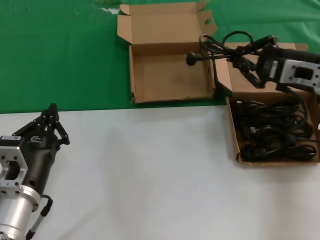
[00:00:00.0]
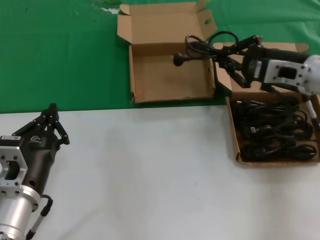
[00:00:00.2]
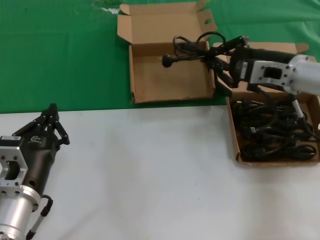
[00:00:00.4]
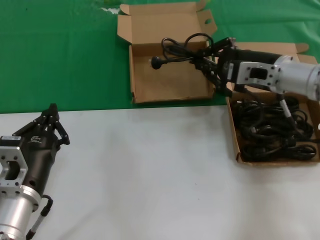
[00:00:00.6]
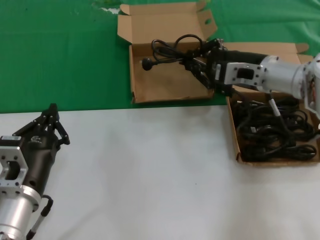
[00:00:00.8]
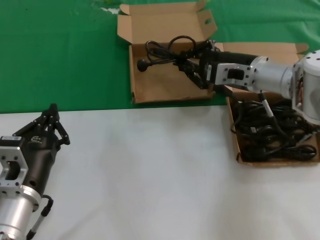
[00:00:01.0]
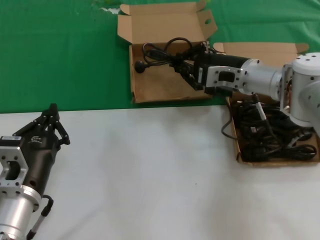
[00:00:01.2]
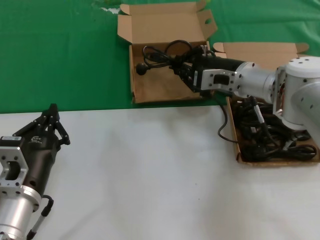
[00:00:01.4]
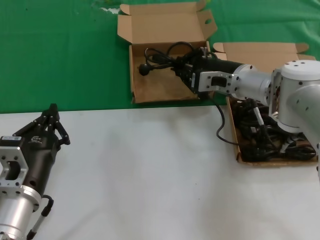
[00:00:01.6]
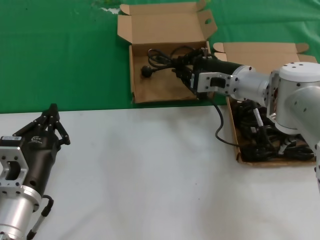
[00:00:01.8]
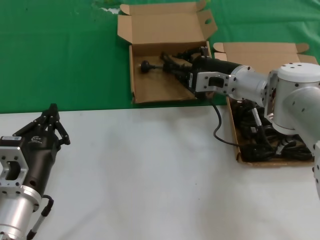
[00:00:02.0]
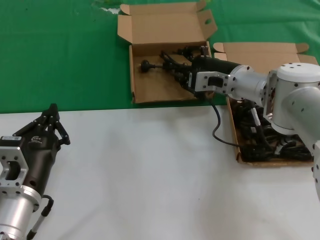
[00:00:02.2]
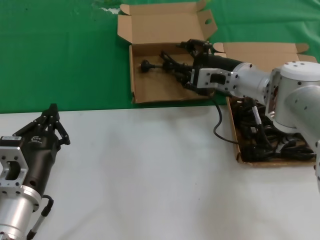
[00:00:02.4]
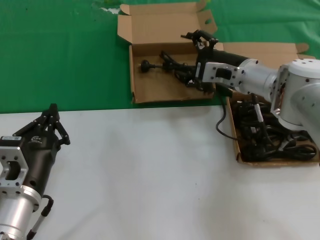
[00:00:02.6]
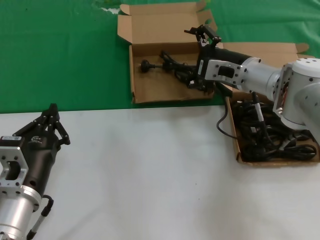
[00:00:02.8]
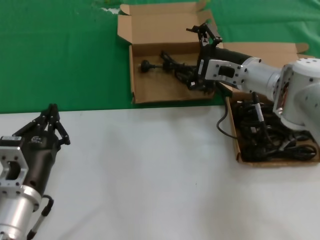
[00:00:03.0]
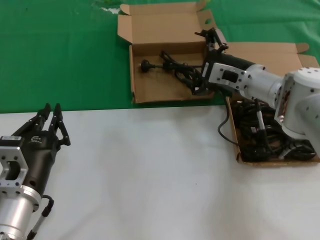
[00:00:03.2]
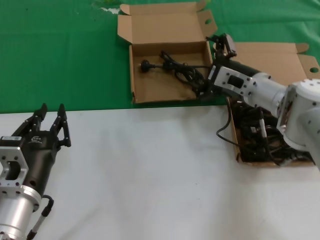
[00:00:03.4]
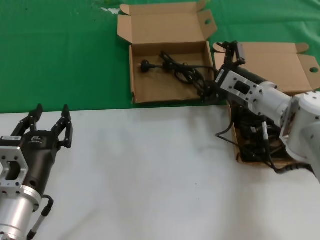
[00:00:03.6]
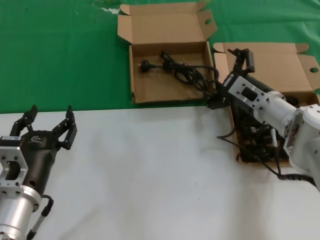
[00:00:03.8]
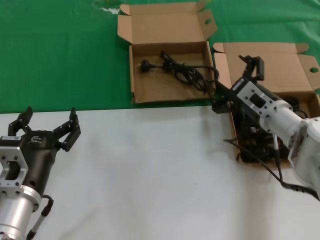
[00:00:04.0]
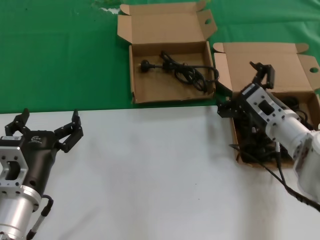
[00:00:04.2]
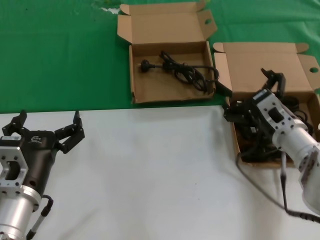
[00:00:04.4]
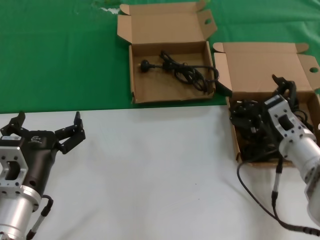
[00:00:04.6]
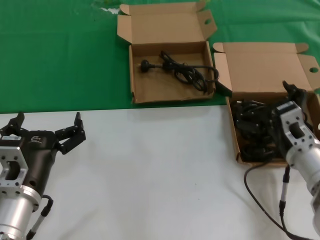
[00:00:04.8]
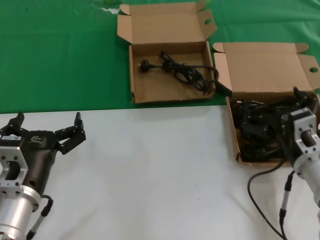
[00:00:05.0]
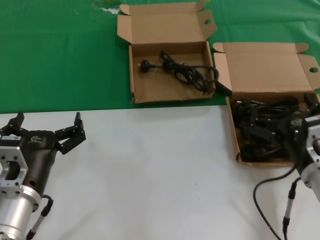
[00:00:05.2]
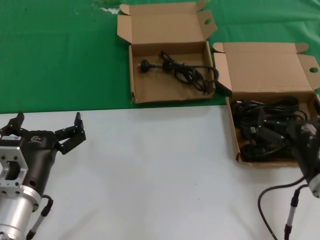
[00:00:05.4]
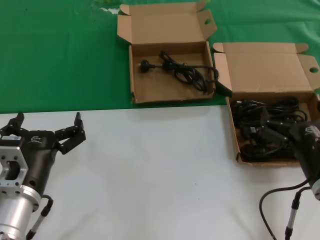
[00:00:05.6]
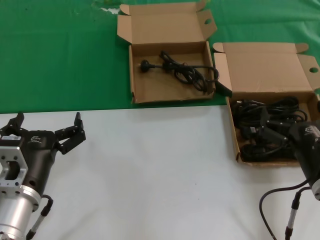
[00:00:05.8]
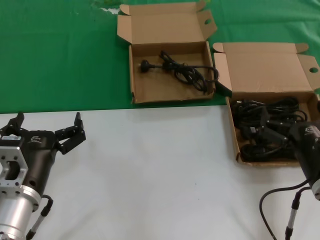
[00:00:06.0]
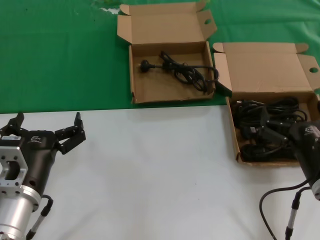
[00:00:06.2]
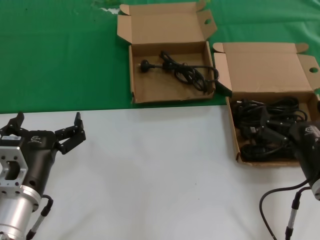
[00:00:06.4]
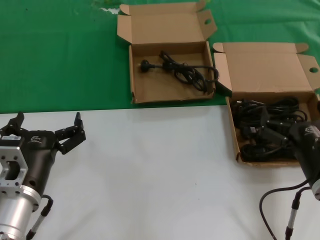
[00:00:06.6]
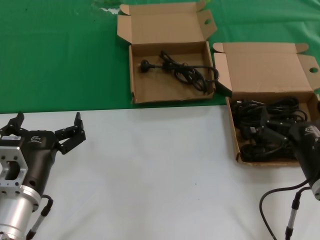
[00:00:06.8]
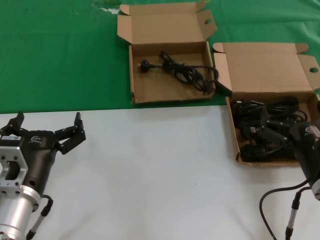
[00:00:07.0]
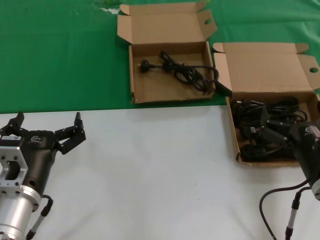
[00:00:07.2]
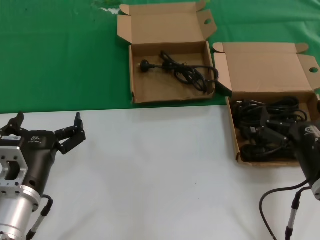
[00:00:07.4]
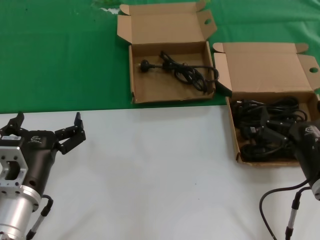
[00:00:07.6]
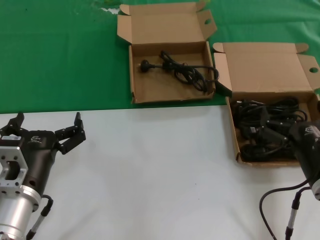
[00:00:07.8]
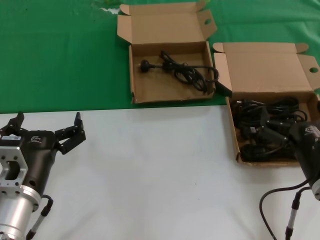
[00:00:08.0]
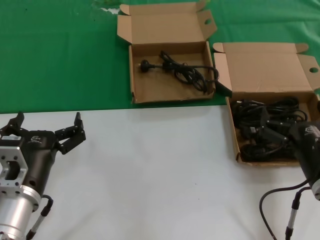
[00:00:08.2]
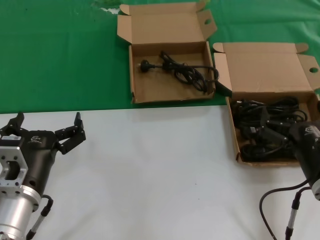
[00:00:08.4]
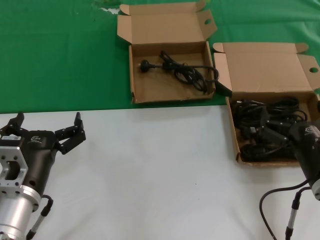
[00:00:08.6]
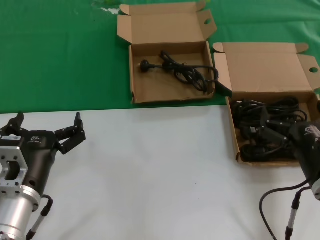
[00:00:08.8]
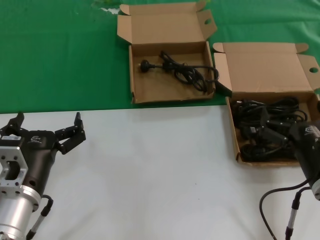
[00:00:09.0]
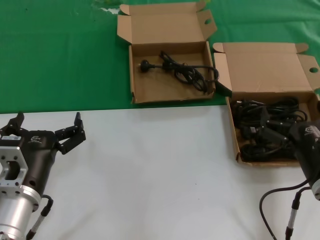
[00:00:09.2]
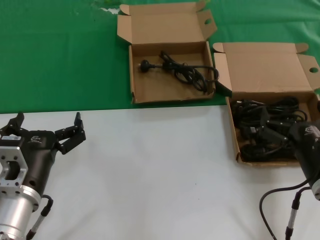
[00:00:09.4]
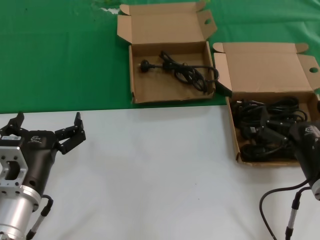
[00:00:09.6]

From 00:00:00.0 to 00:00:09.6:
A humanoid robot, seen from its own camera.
Task of the whole recording: take the parts from the box containing them and put them into an empty box.
Step, from 00:00:00.0 to 00:00:02.0: Place the data cable in the another box.
From 00:00:00.0 to 00:00:01.6: The right hand is displaced to the left, forward and downward by roughly 15 cm.
From 00:00:01.6 to 00:00:03.2: The hands move only a little.
From 00:00:03.2 to 00:00:04.8: The right hand travels backward and downward by approximately 15 cm.
From 00:00:04.8 to 00:00:06.4: The right hand moves backward, some 10 cm.
From 00:00:06.4 to 00:00:09.6: Neither hand changes place.

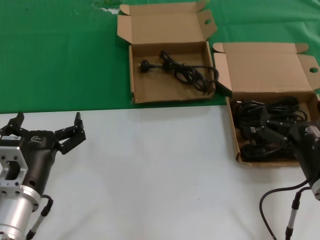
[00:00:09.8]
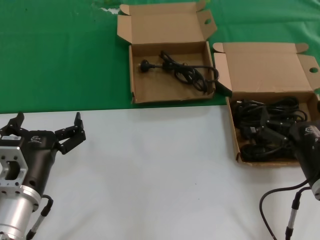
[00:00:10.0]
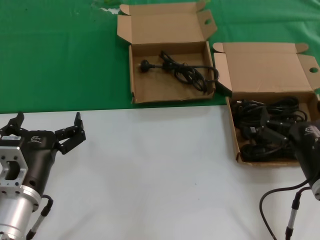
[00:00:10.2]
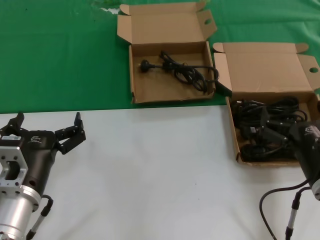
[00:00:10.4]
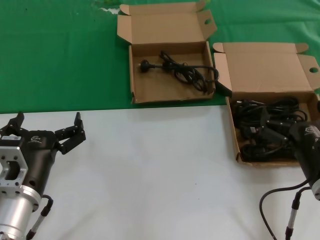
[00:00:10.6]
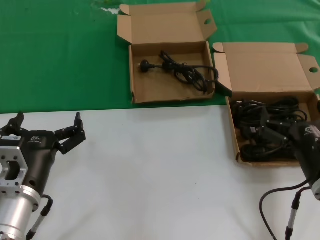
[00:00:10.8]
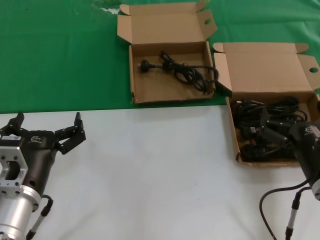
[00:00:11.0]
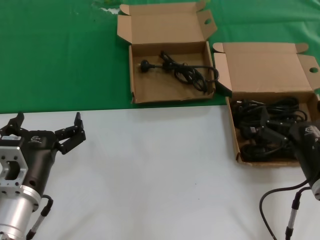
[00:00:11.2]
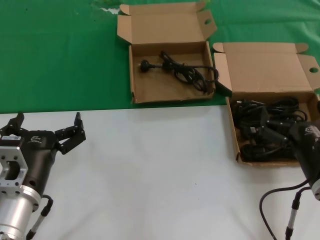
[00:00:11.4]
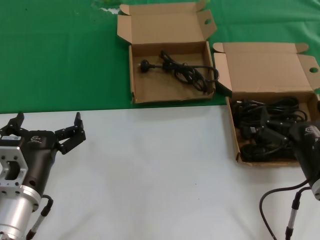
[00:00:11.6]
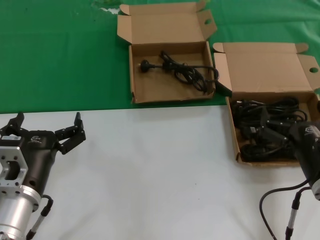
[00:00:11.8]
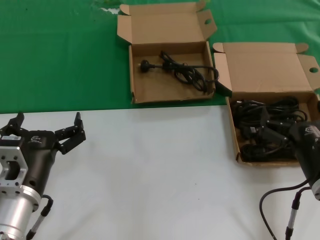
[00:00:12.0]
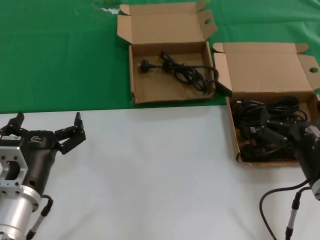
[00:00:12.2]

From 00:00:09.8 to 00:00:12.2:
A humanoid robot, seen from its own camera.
Task of the whole recording: take the parts from the box containing them and put them into an empty box.
From 00:00:09.8 to 00:00:12.2: Both hands stay about where they are.
